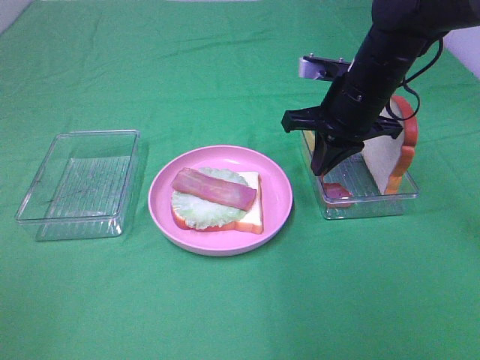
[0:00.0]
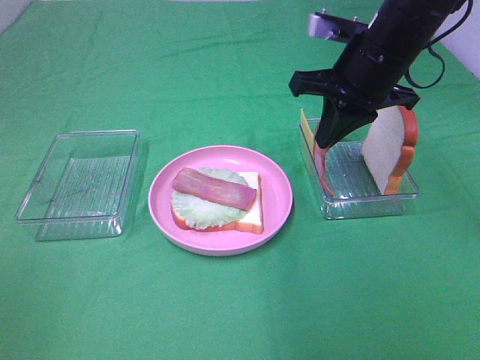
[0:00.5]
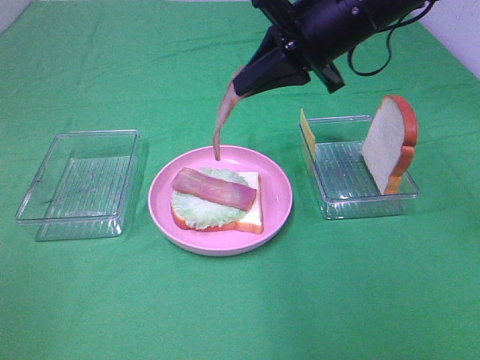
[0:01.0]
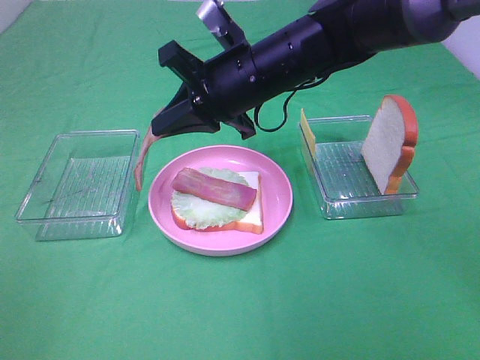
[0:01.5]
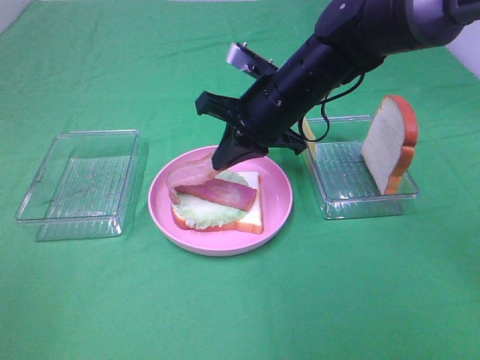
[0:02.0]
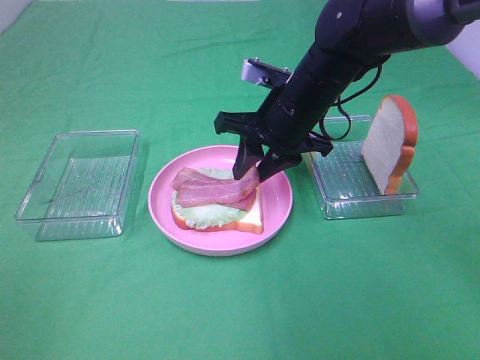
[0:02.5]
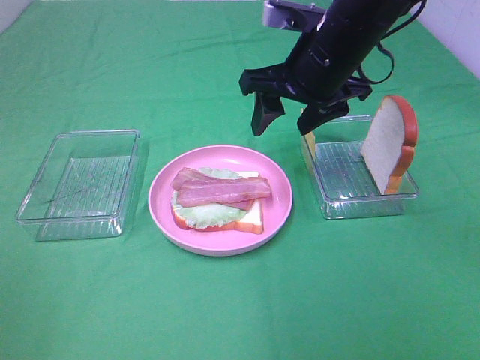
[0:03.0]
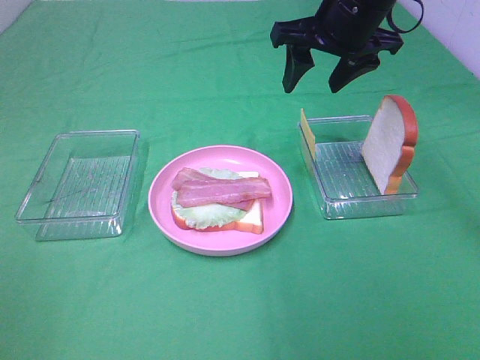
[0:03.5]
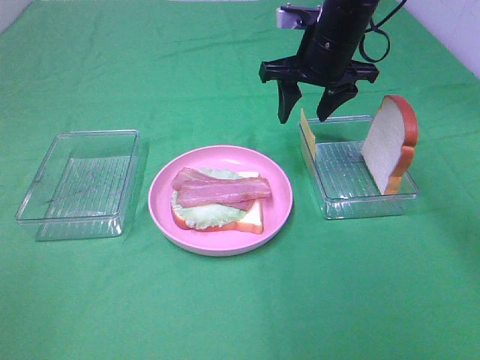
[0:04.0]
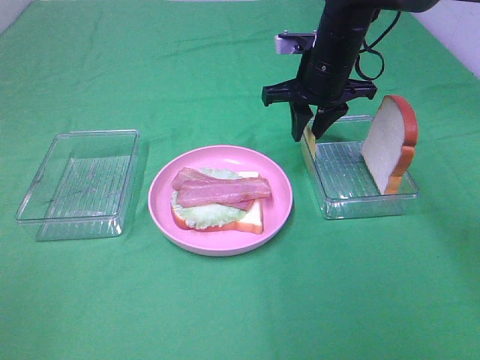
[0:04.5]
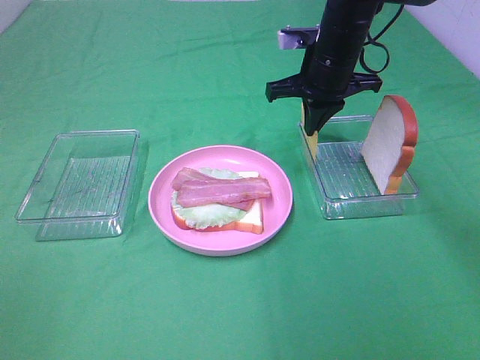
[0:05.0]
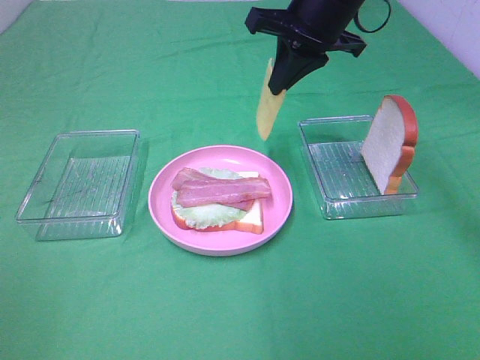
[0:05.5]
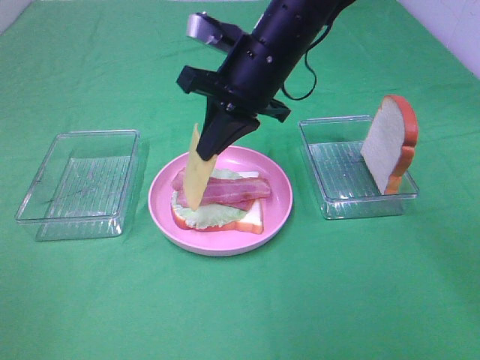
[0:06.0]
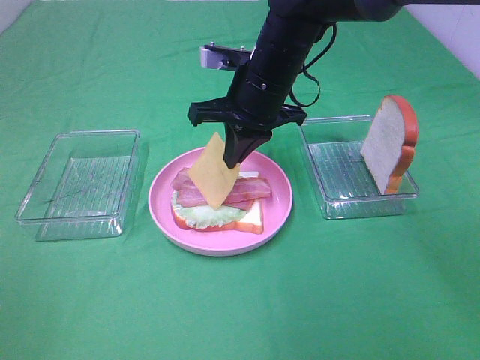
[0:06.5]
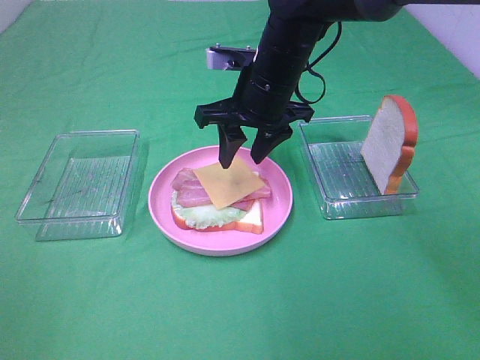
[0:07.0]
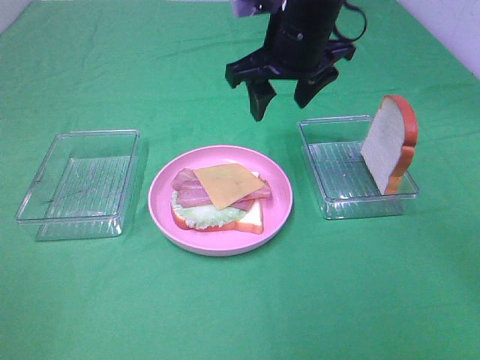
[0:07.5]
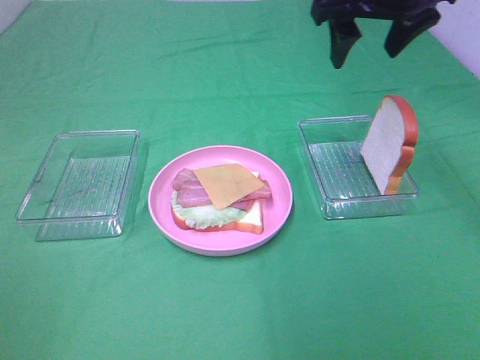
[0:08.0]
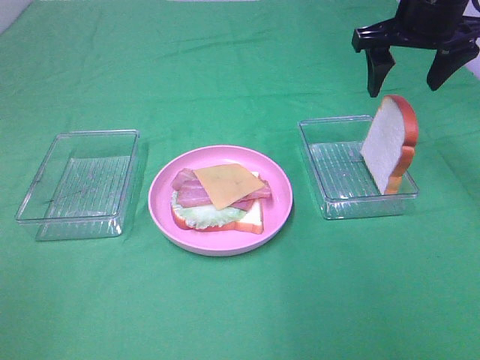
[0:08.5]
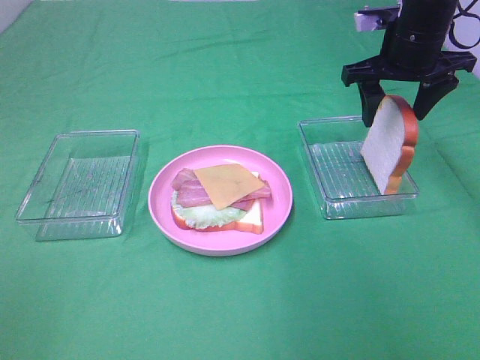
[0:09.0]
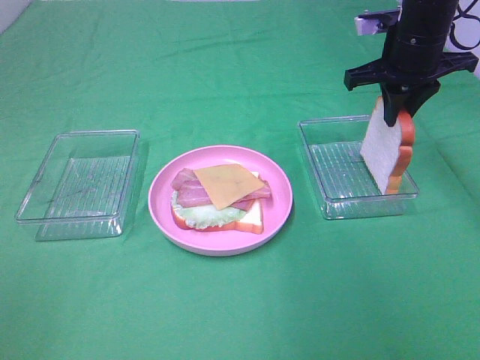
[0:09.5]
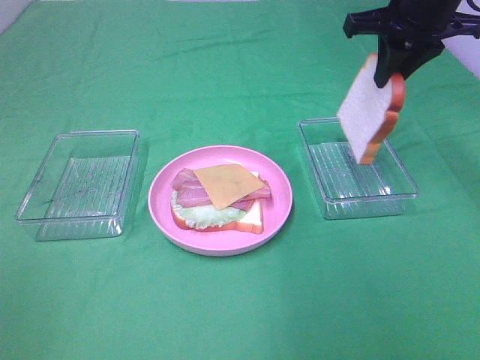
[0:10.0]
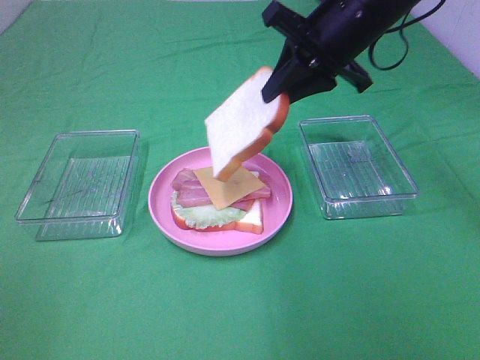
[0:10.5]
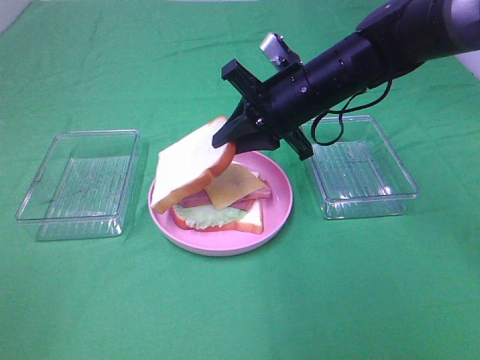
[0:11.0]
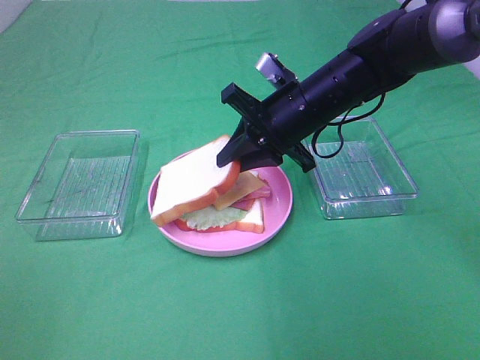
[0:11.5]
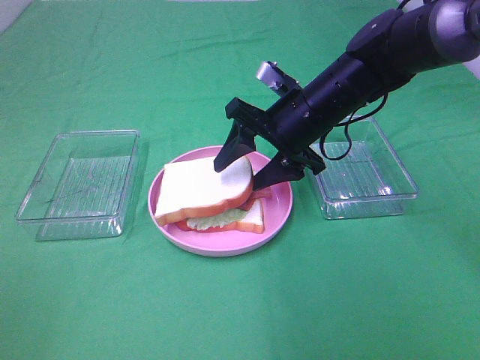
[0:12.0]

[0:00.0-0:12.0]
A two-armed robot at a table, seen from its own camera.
Task of the whole recording: Make sandwiches.
Step, 0:00.5 to 0:02.5: Right hand:place bacon on bacon.
Step, 0:03.0 to 0:04.5: Right hand:grab the cheese slice.
Step, 0:05.0 to 0:07.0: Right hand:place the cheese slice on top of the bacon.
Step, 0:07.5 to 0:09.0: Right hand:grab the bread slice.
0:00.0 to 0:02.0: The right gripper goes about 10 cm to the left.
0:02.0 to 0:04.0: The right gripper moves forward and to the right, approximately 10 cm, and opens its fingers.
0:04.0 to 0:06.0: The right gripper goes some 10 cm to the left and backward, reaches about 5 cm upward, then returns, and closes.
0:06.0 to 0:08.0: The right gripper shifts approximately 15 cm to the right and upward, and opens up.
0:08.0 to 0:10.0: The right gripper reaches roughly 10 cm downward, then returns, and closes its fingers.
0:10.0 to 0:12.0: The right gripper moves downward and to the left, roughly 15 cm, and opens.

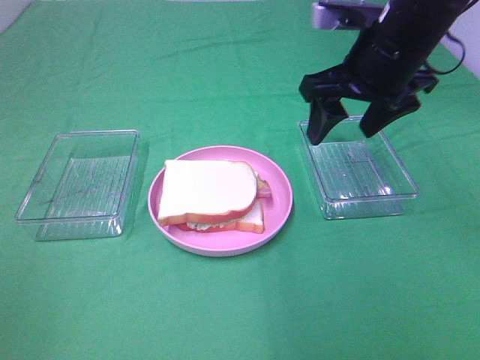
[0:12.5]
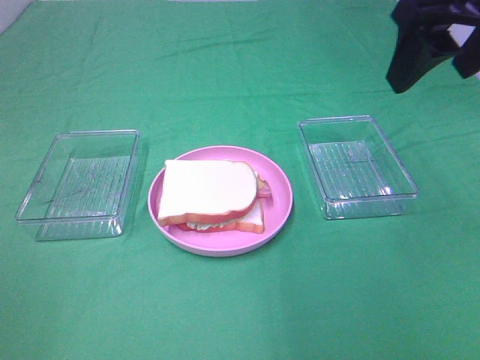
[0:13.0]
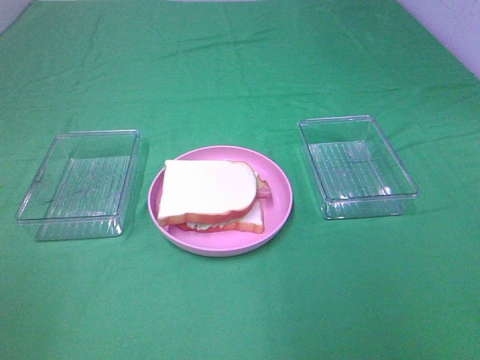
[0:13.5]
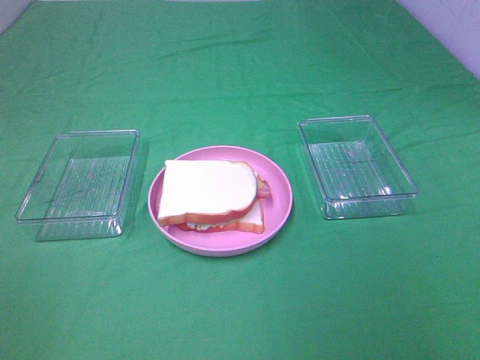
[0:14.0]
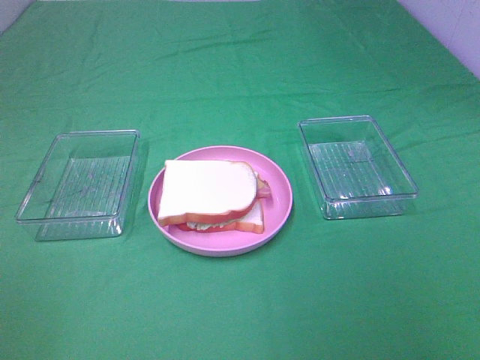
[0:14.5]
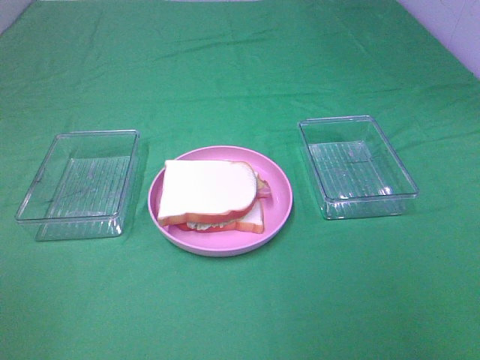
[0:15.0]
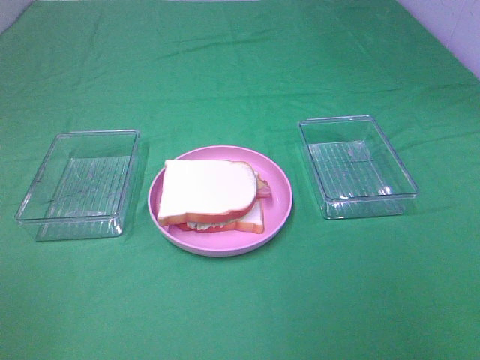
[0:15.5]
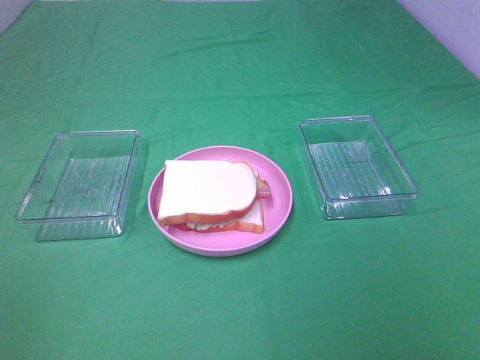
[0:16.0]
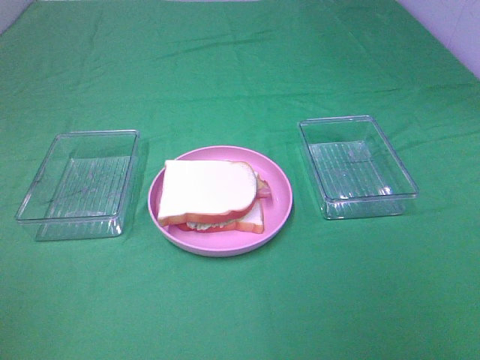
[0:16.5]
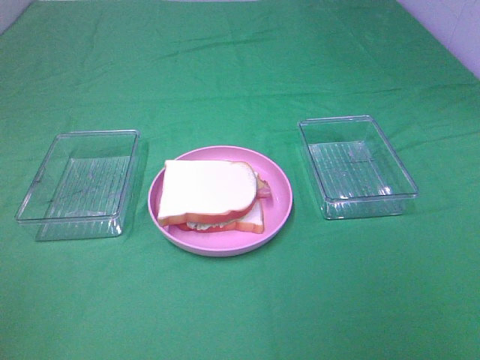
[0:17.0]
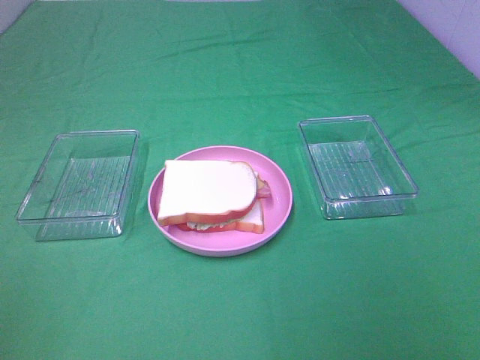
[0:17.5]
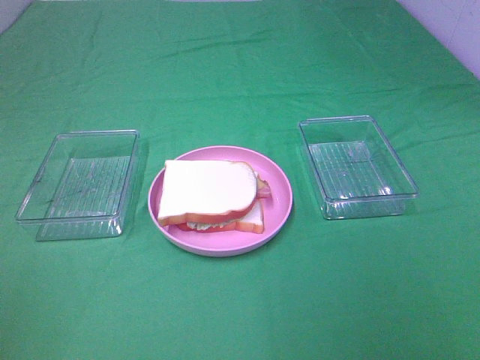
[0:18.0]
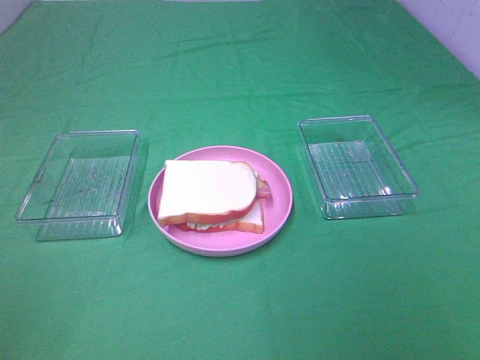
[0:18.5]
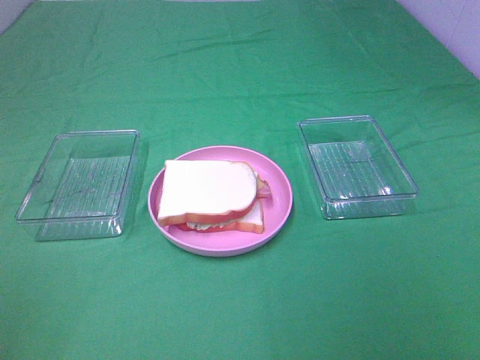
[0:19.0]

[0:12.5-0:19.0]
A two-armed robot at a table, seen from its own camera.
Task of the whole recording: Make sandwiches.
0:12.5 to 0:14.5: The right gripper heads backward and to the right, covering about 35 cm.
0:17.0 to 0:19.0: Both grippers stay put.
